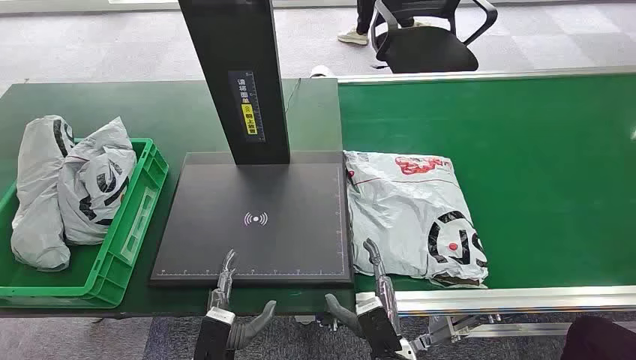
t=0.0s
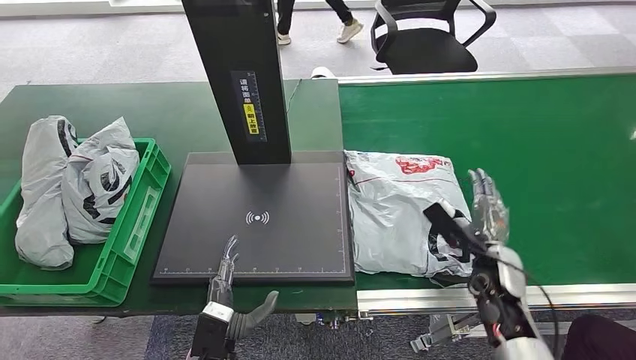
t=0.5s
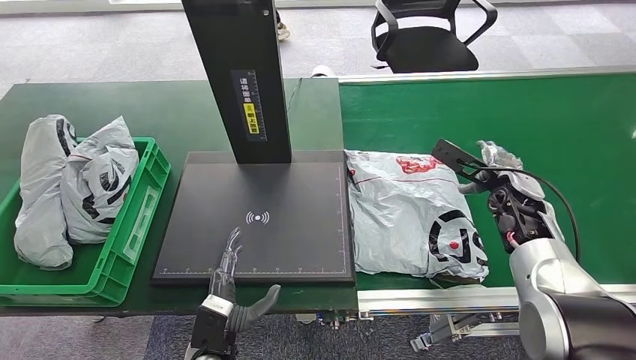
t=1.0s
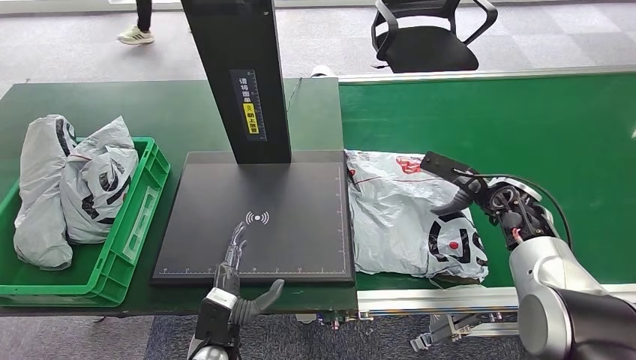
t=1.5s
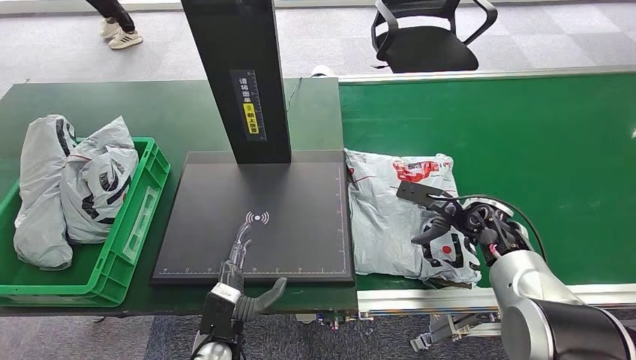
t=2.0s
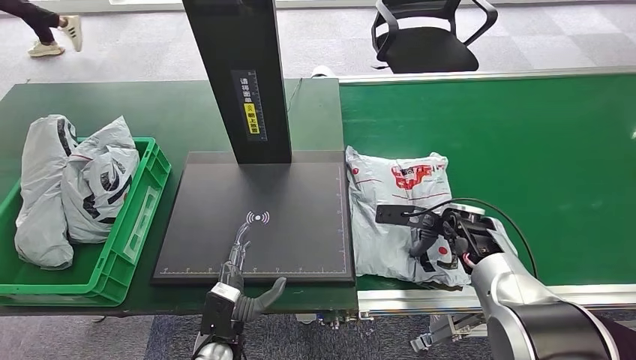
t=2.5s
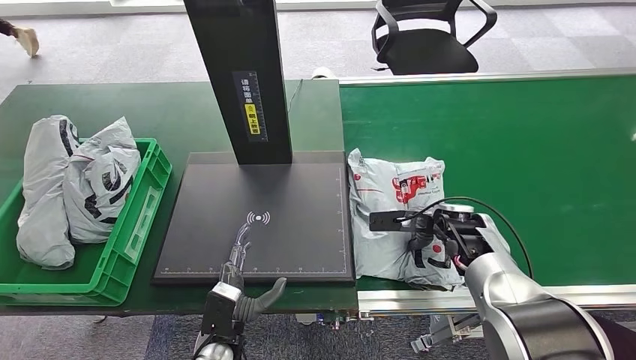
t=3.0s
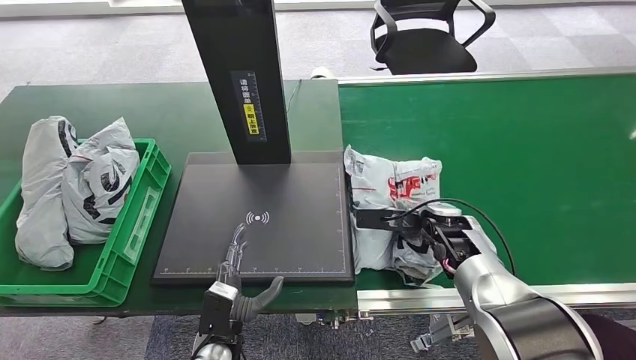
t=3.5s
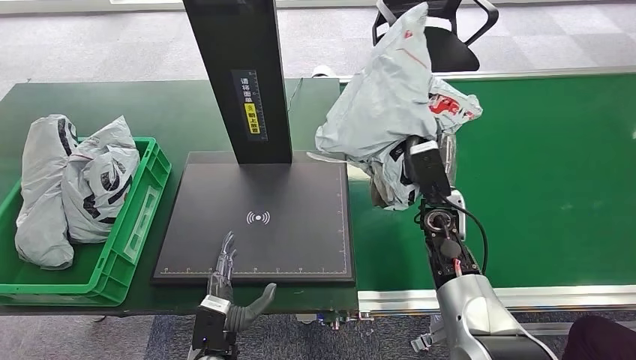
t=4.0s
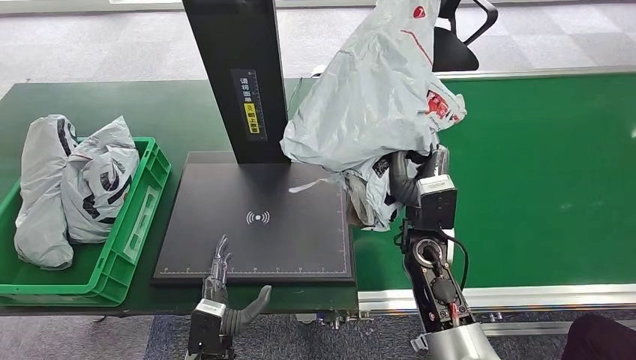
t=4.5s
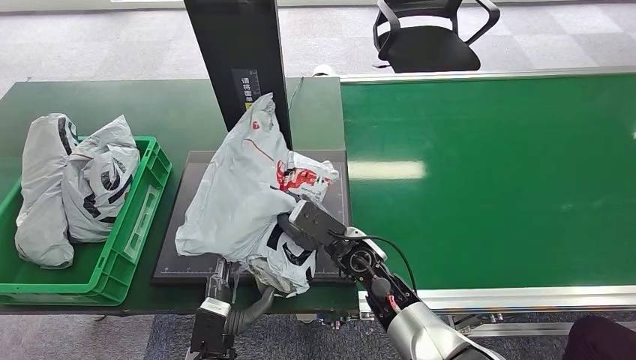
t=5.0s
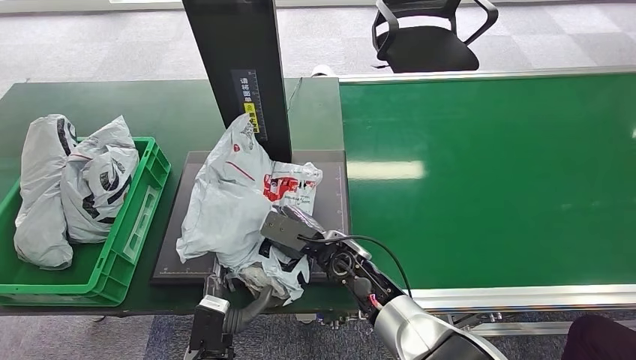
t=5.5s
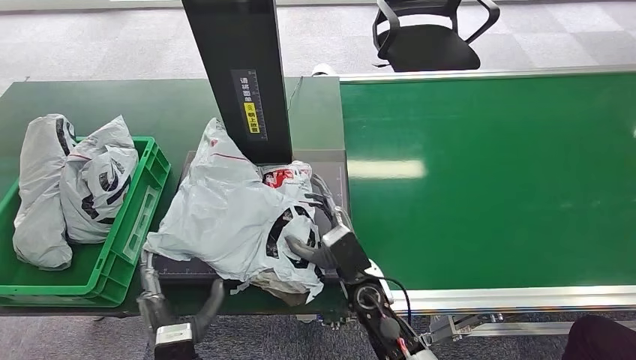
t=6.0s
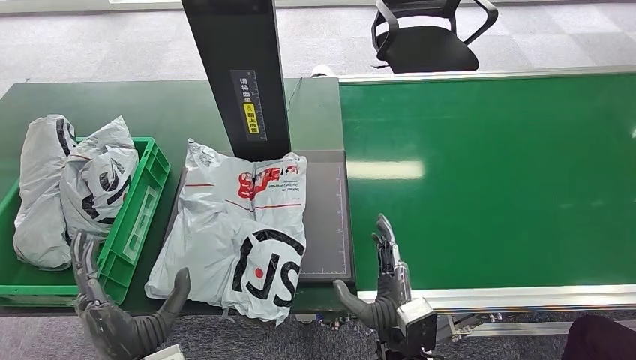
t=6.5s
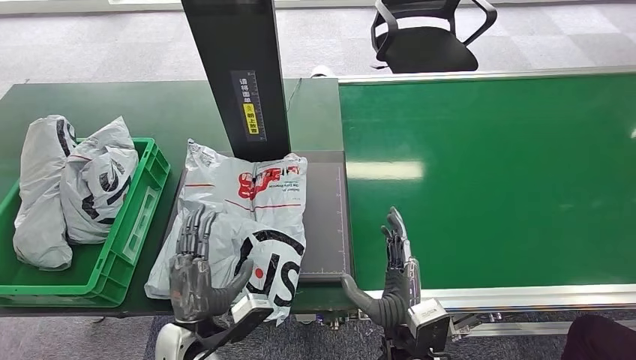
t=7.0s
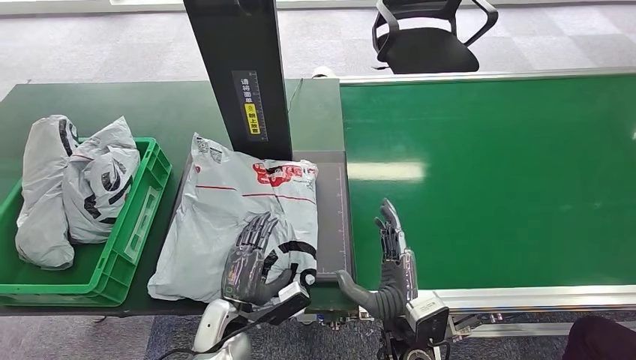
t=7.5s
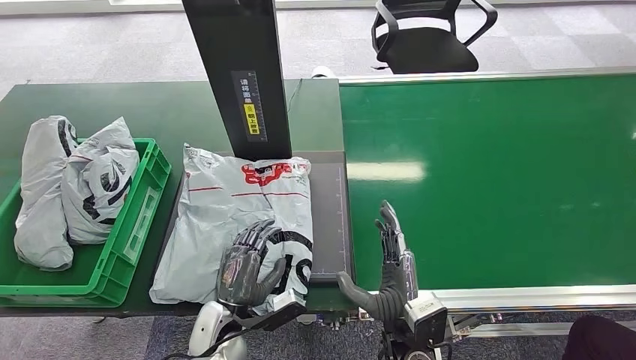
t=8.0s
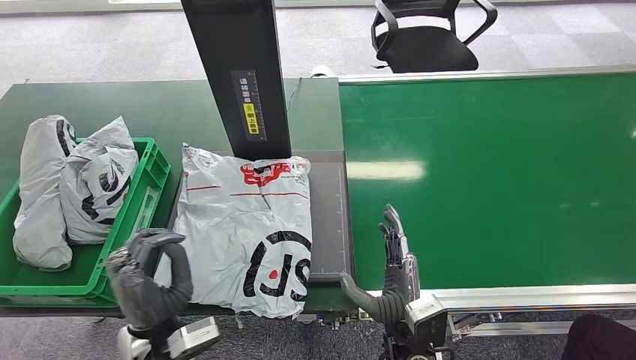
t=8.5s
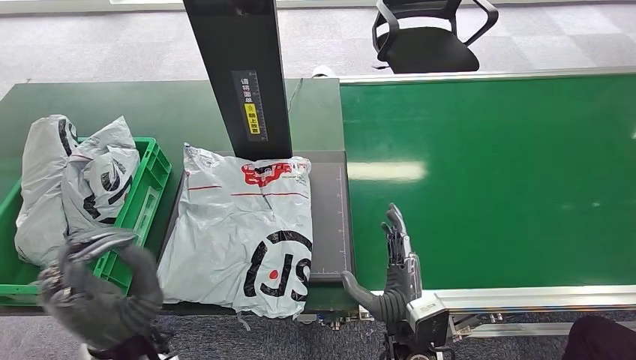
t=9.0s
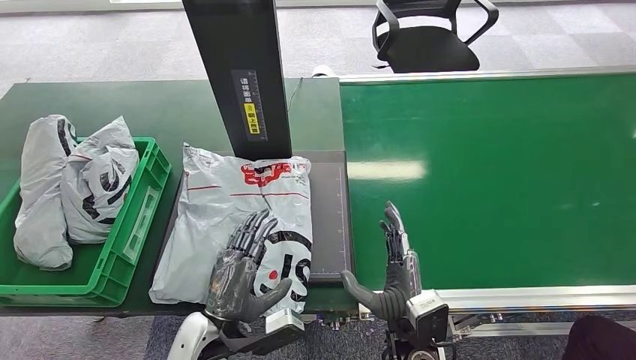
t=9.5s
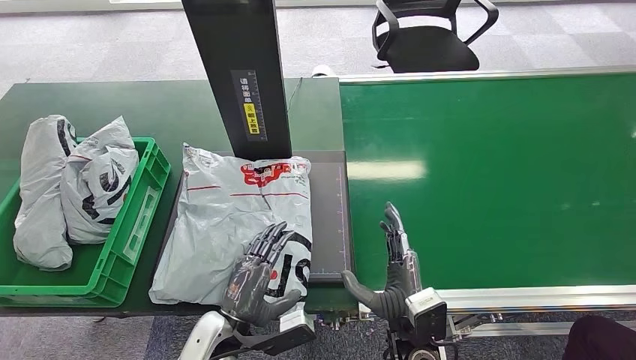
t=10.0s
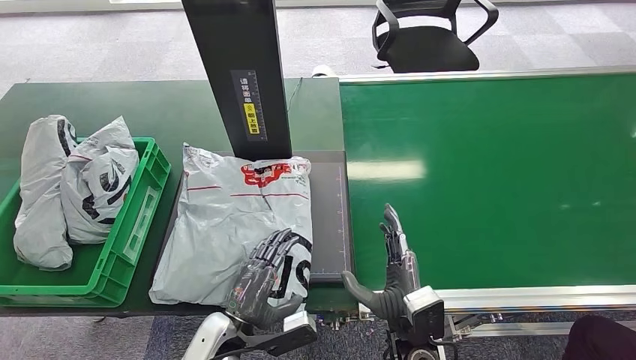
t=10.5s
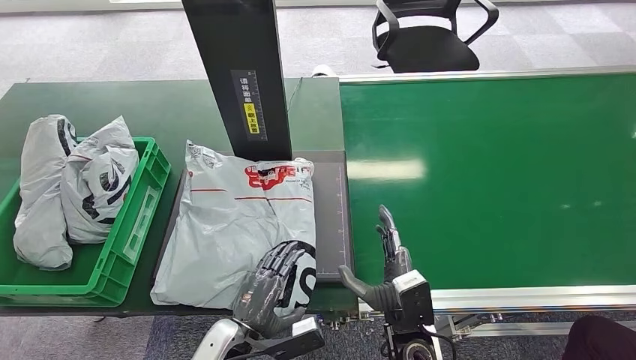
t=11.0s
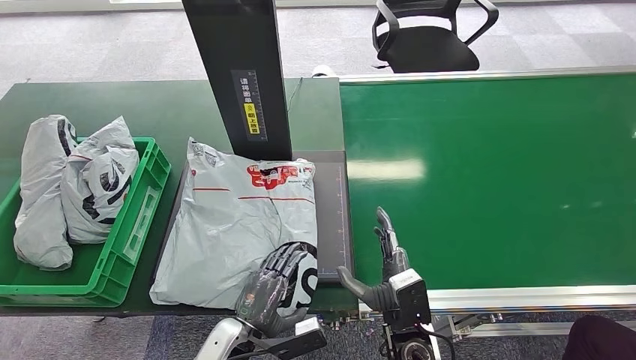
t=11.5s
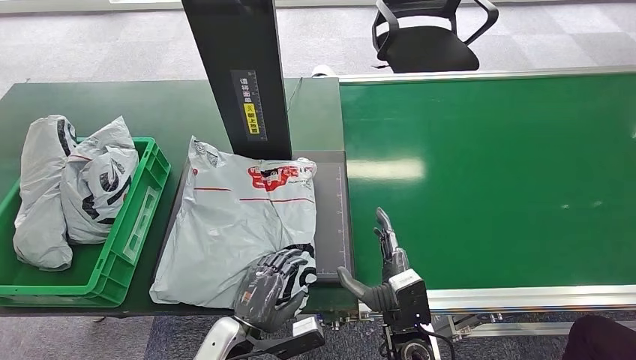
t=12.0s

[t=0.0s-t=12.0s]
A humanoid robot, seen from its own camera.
Step, t=0.0s to t=4.0s: Pick up the package from the conveyor belt.
Step, t=5.0s to t=6.5s: Place the package onto the inbound machine.
t=6.0s to t=8.0s: The right hand travels backward by approximately 10 cm; the left hand goes about 10 cm forward, and moves some 5 cm upward and comes back.
t=8.0s to t=10.0s: The left hand reaches about 15 cm upward, then returns.
t=10.0s to t=12.0s: There are only small adjustments of the hands.

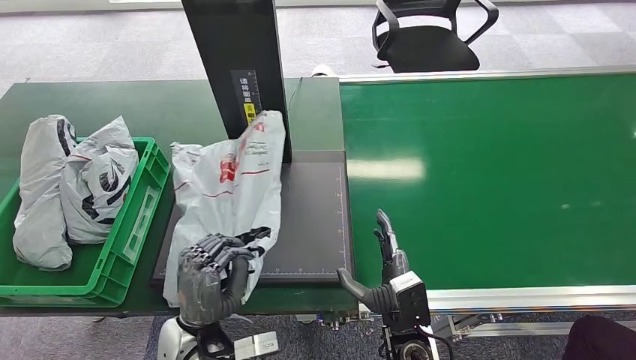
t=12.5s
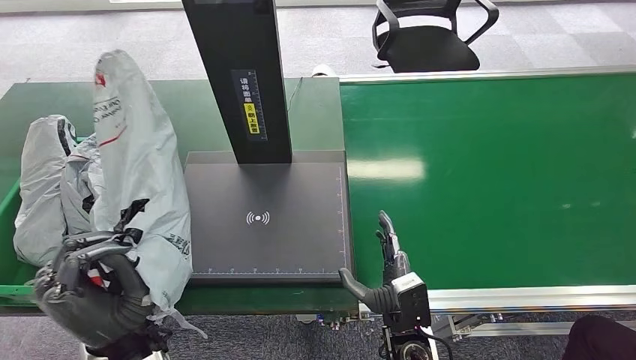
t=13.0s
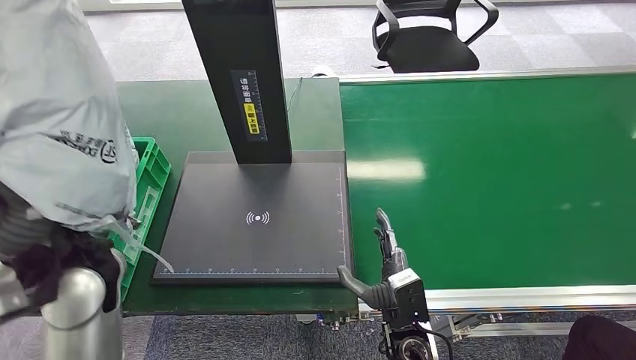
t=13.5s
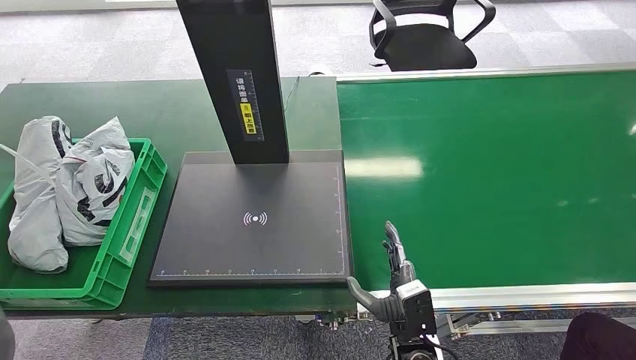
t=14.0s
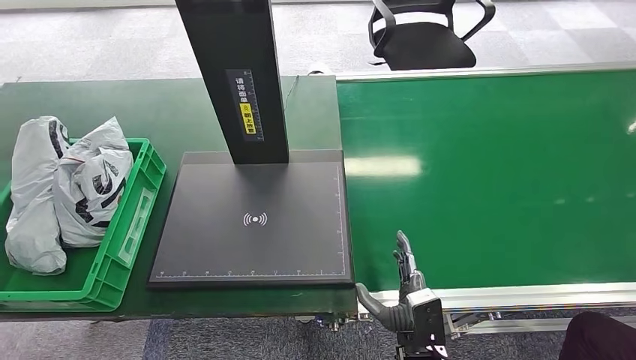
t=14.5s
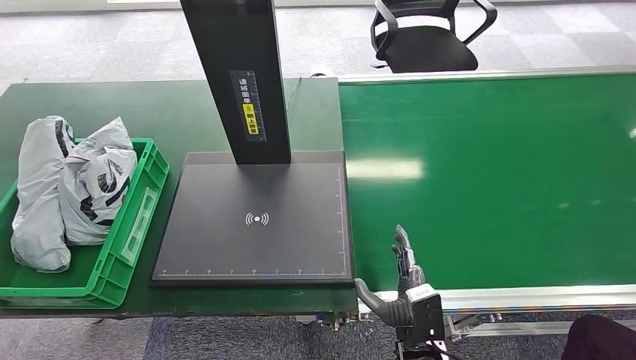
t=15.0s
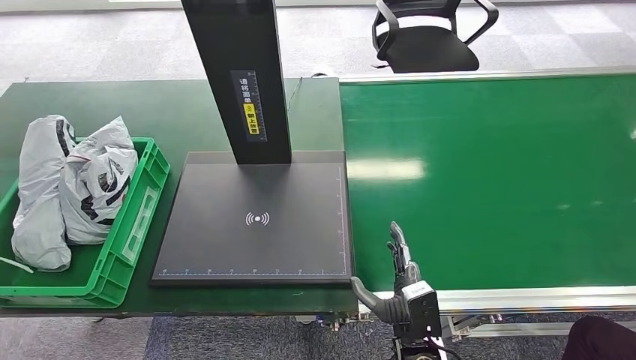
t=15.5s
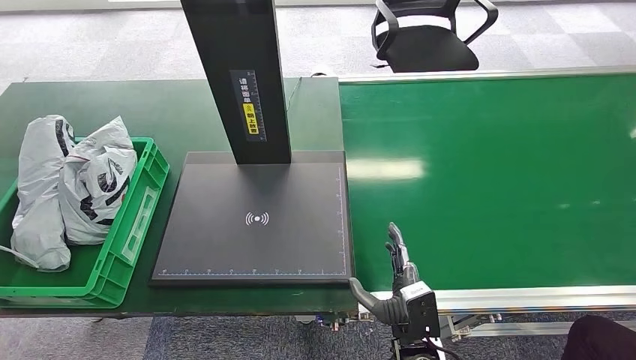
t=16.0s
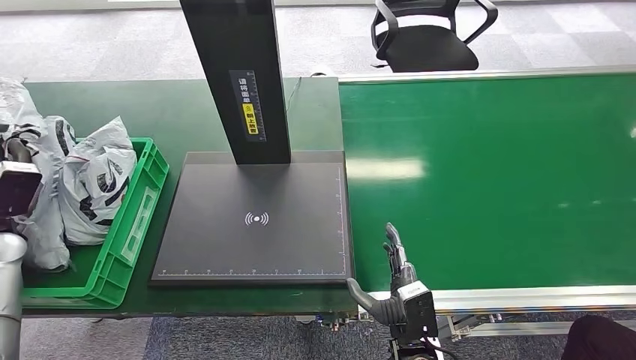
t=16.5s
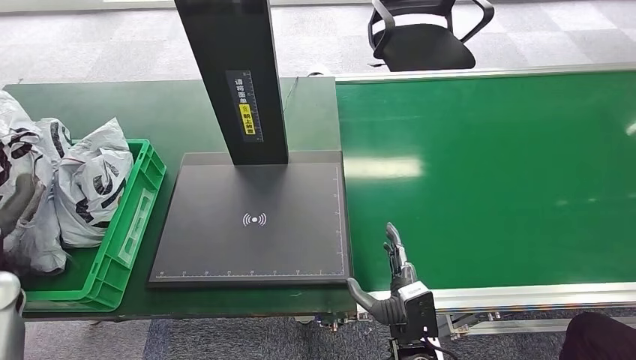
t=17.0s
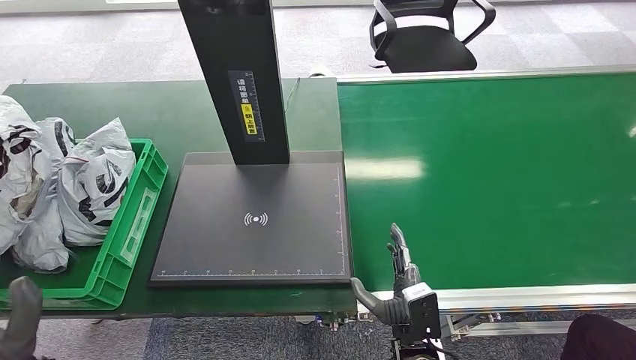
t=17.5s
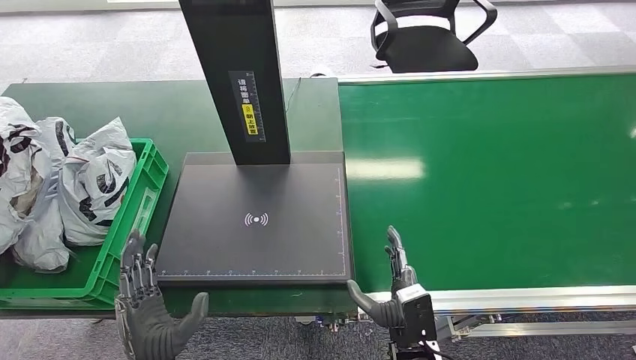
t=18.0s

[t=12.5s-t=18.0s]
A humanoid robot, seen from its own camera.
Step, t=13.5s to t=18.0s: Place the package into the parcel locker.
t=14.5s to t=16.0s: The left hand heads forward, covering about 10 cm.
t=16.0s to t=18.0s: The left hand heads to the right, downward and backward, covering some 40 cm.

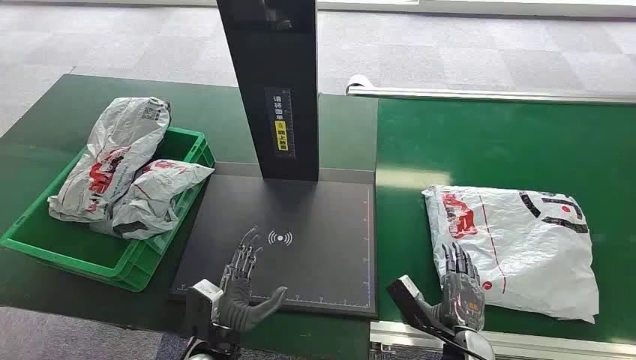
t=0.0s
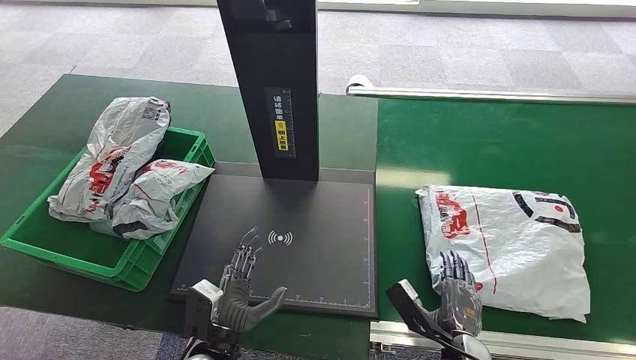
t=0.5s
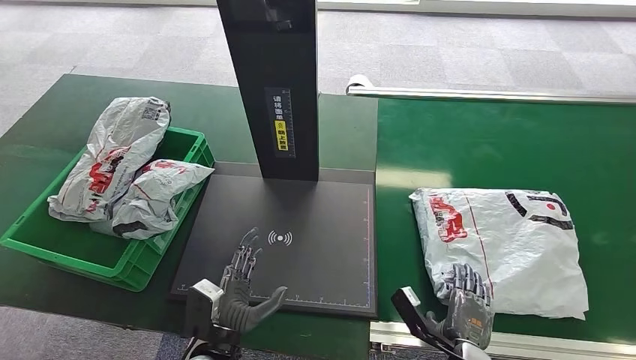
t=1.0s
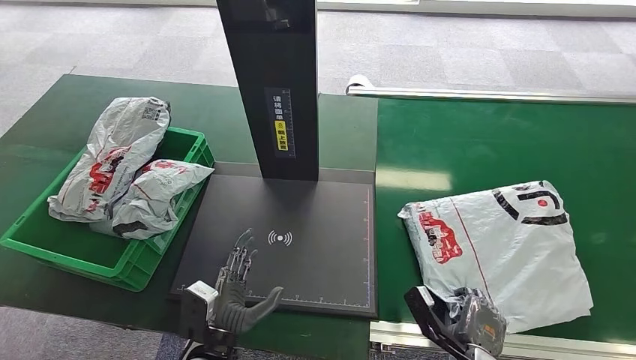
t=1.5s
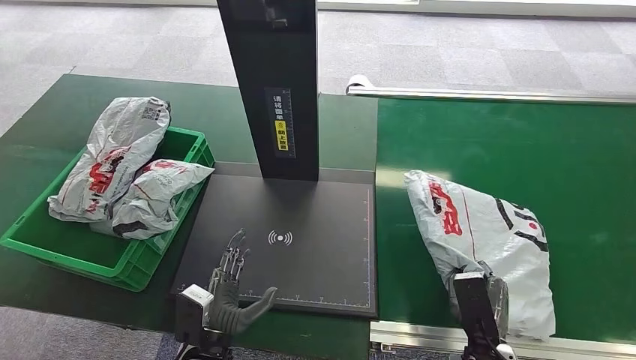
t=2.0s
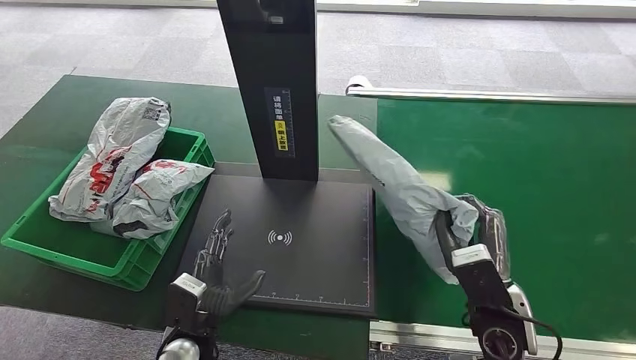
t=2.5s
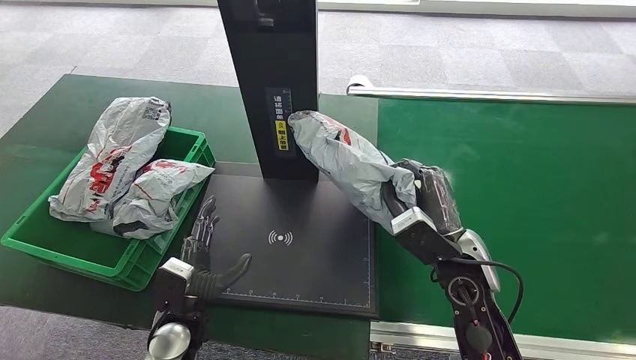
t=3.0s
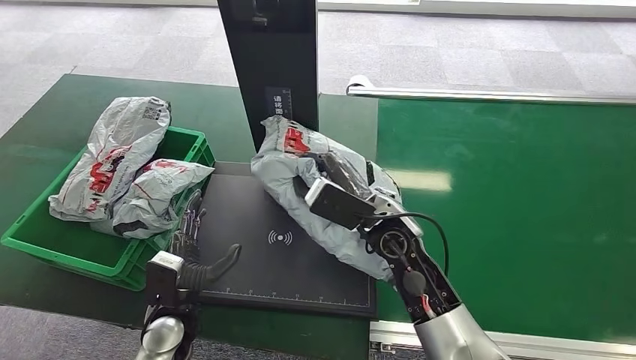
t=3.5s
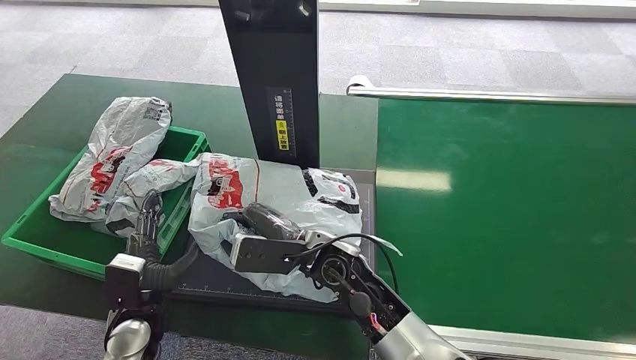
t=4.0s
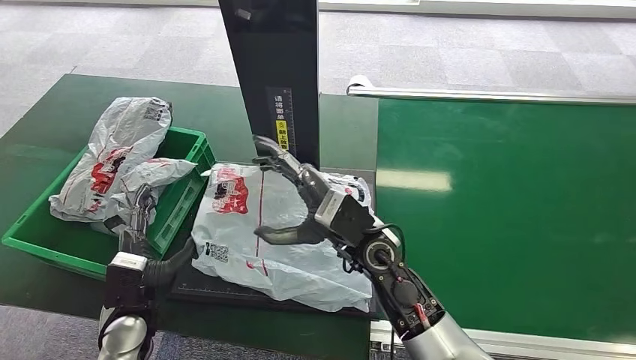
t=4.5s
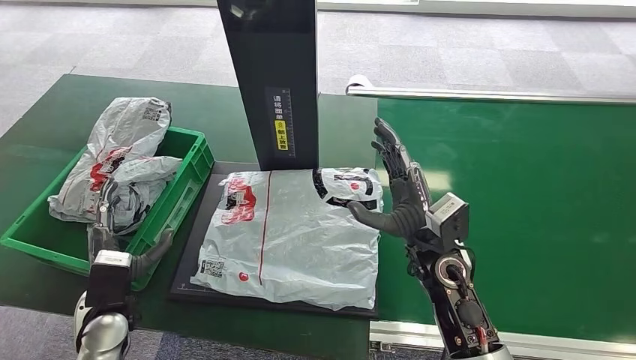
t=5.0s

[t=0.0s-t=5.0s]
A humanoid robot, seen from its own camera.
Step, t=0.0s to t=2.0s: Pick up the package from the conveyor belt.
